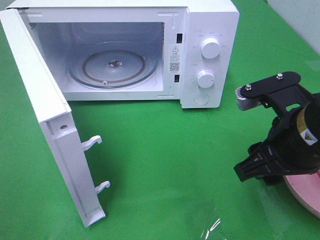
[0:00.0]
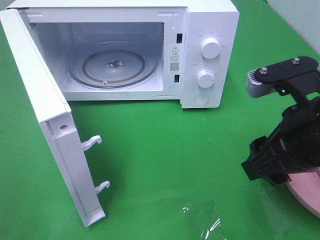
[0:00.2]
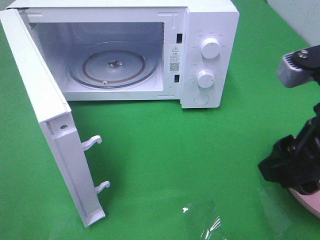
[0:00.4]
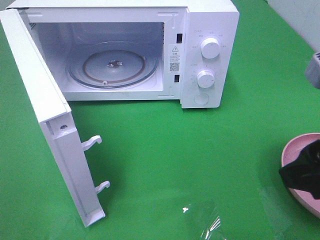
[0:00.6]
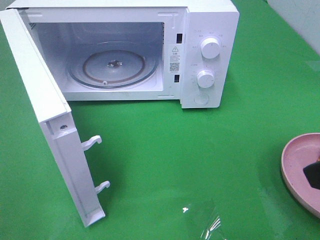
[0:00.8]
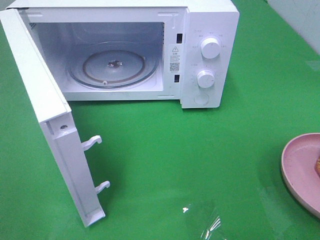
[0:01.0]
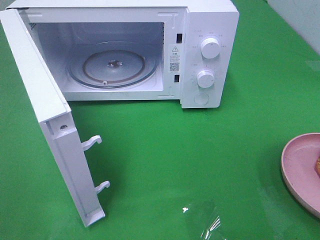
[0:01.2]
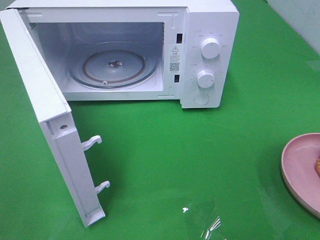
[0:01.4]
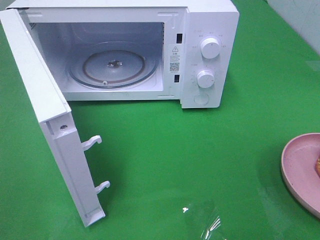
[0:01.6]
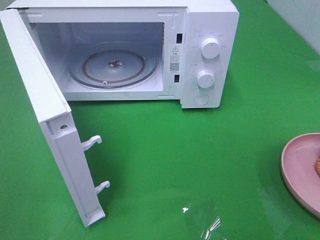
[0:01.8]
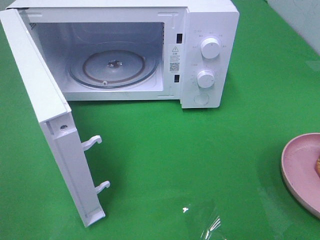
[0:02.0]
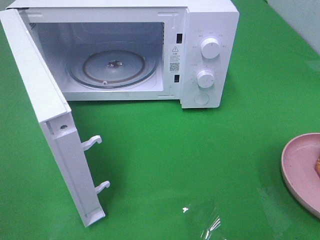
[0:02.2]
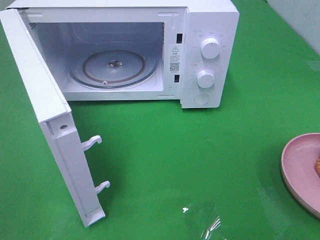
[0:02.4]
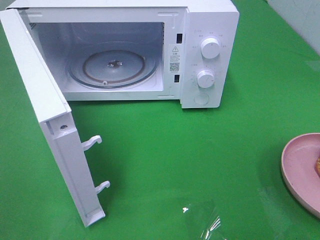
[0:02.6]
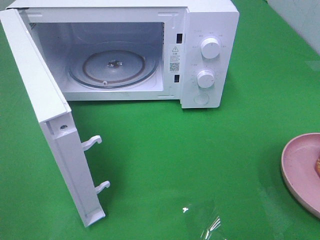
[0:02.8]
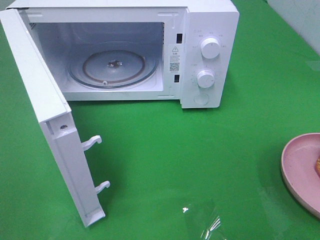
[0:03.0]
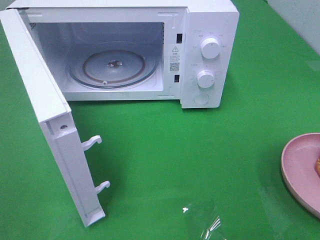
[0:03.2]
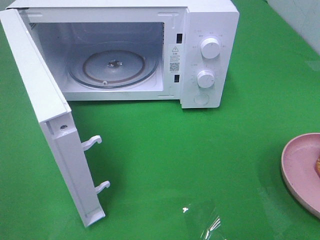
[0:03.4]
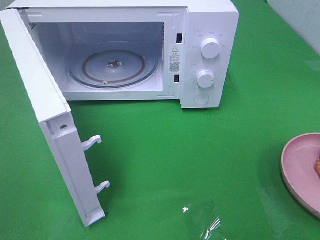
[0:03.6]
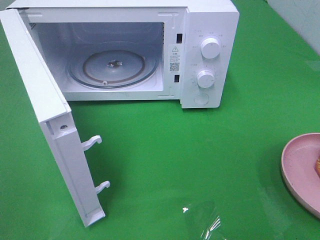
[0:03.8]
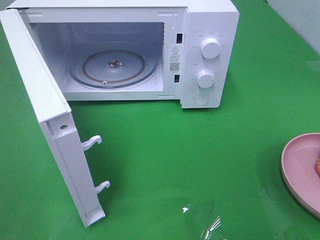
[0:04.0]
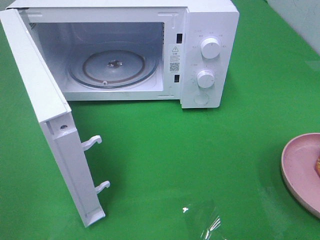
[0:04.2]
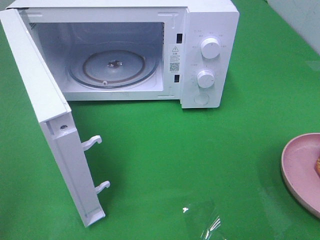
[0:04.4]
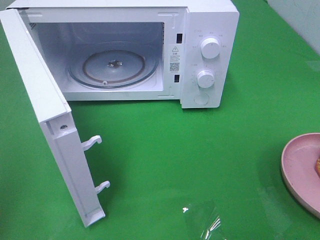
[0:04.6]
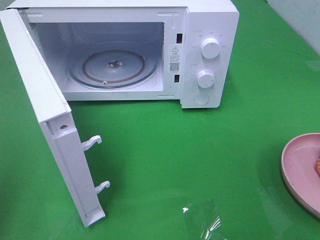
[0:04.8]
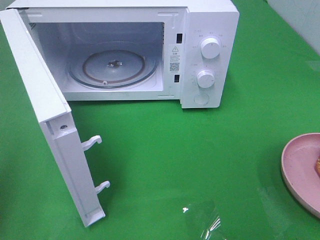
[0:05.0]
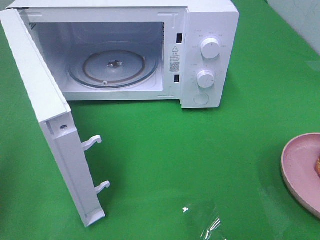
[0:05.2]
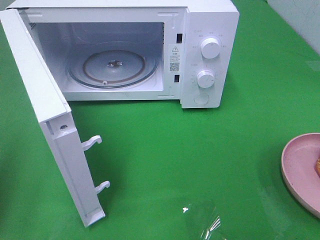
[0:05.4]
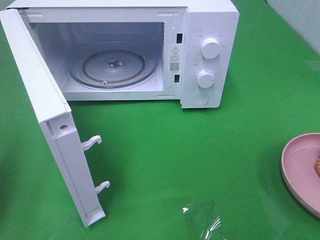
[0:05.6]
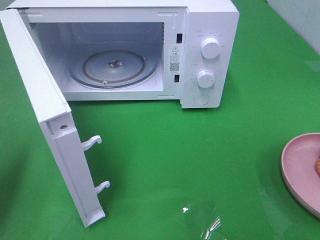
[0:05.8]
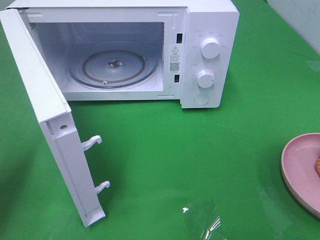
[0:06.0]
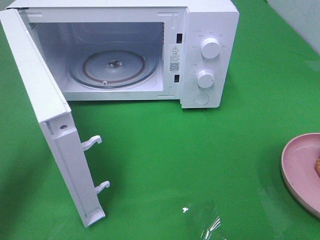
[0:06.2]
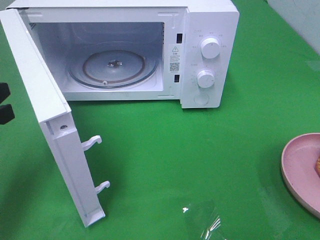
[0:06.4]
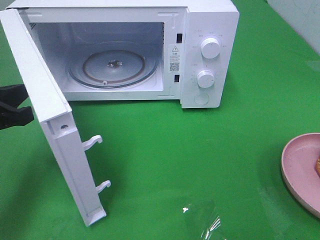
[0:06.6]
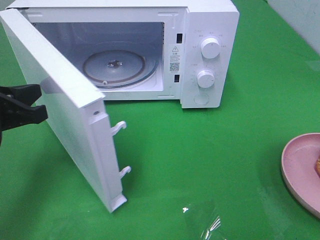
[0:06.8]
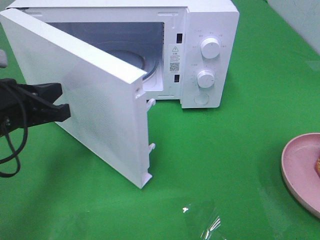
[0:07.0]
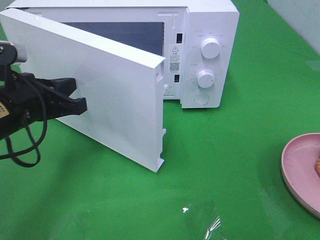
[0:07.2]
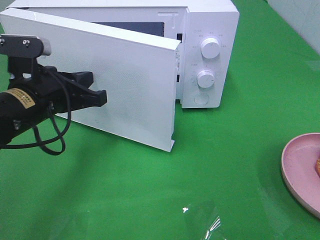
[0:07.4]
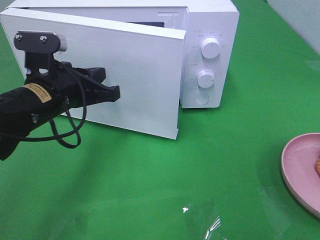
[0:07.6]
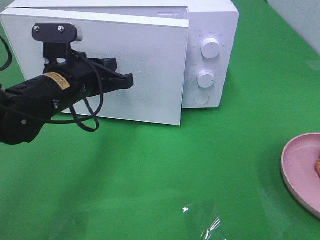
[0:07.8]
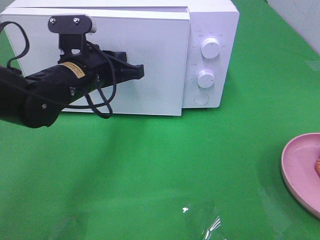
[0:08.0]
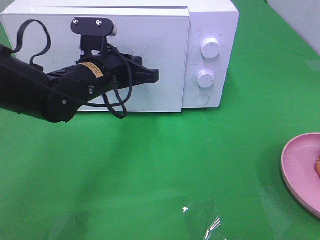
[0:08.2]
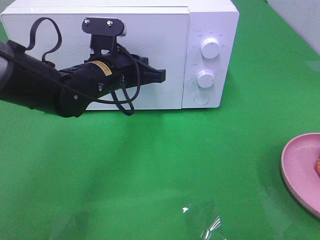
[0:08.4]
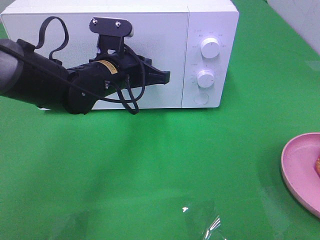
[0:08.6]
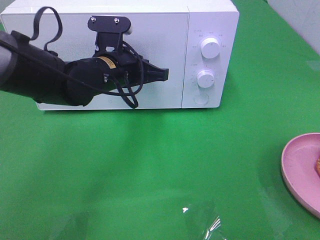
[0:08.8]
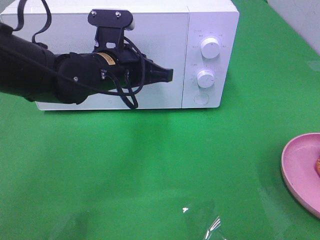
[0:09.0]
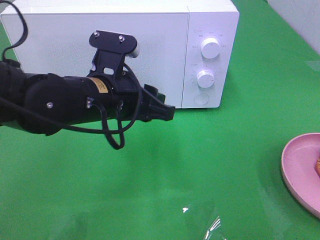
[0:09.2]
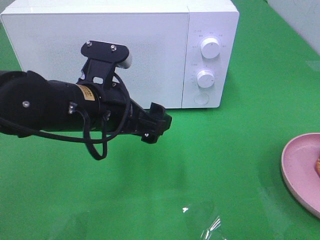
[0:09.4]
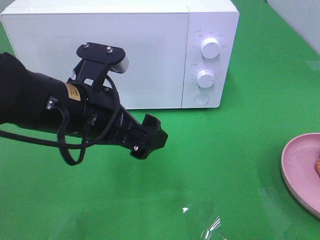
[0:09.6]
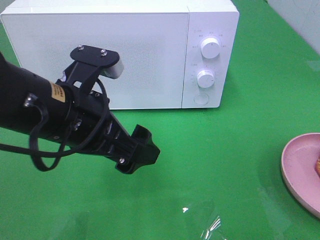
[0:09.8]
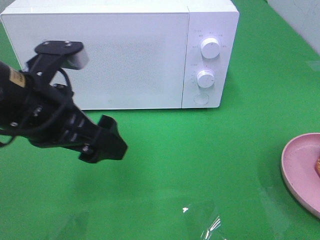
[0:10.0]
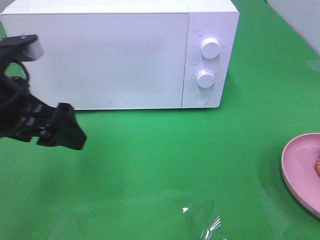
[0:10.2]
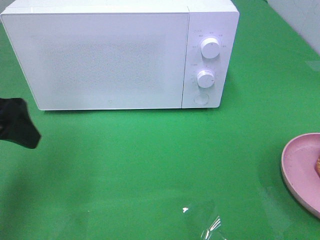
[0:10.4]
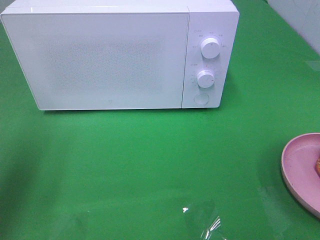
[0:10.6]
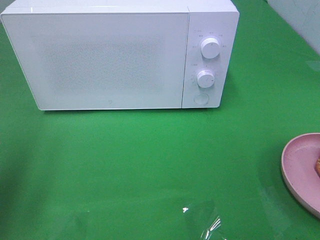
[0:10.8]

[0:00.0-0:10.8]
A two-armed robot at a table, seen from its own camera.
Task of the whole recording: Heat the burger.
Step, 0:00.0 to 0:09.2: Left hand: close the microwave door.
0:00.0 to 0:01.6: The right gripper is displaced backward, to the right and upward by roughly 20 cm.
0:04.6 to 0:06.2: The left gripper heads forward and downward, covering roughly 15 cm.
0:06.2 to 0:07.8: The left gripper moves to the right and forward, approximately 20 cm.
0:07.8 to 0:09.2: The left gripper goes approximately 5 cm to the right, and opens its fingers.
0:09.2 to 0:10.8: The left gripper is displaced to the left by some 25 cm, and opens.
